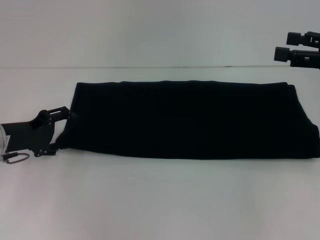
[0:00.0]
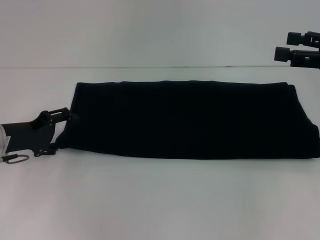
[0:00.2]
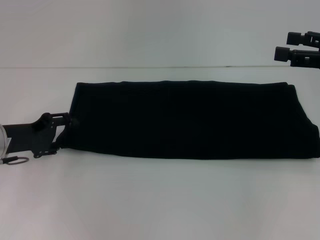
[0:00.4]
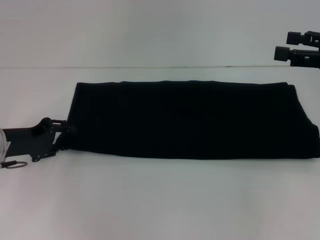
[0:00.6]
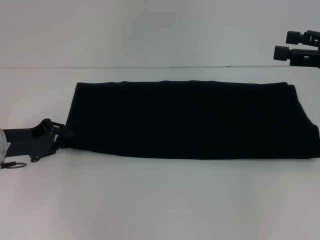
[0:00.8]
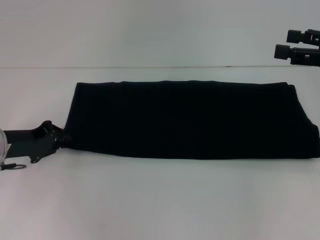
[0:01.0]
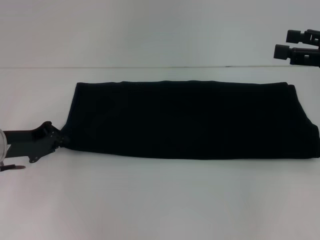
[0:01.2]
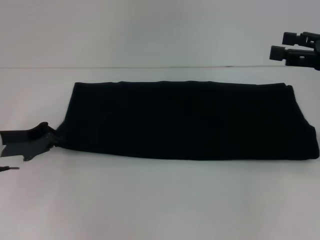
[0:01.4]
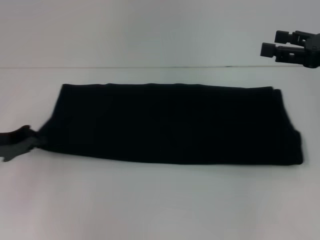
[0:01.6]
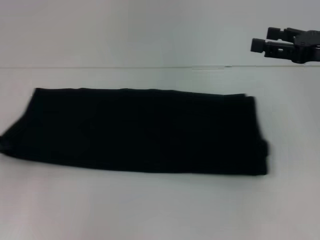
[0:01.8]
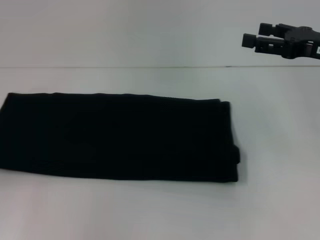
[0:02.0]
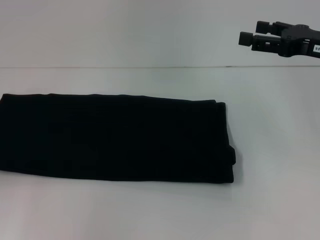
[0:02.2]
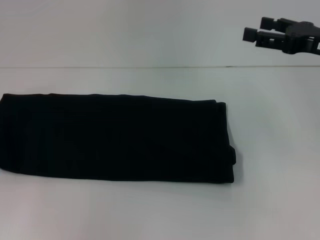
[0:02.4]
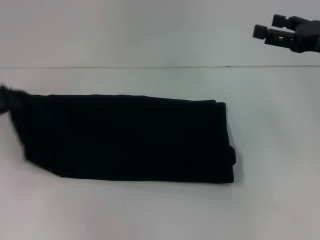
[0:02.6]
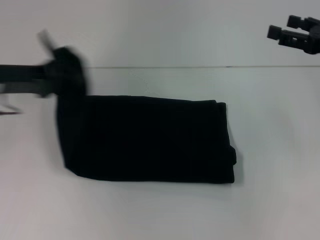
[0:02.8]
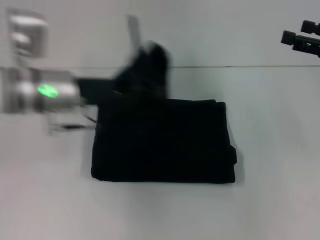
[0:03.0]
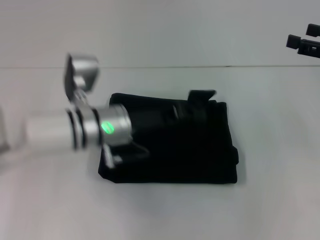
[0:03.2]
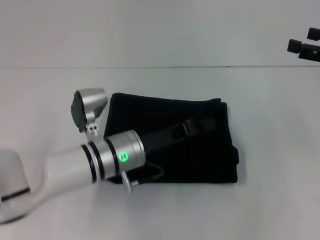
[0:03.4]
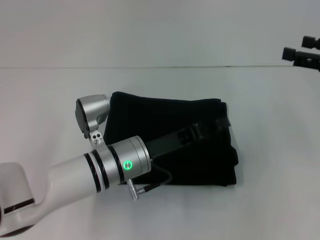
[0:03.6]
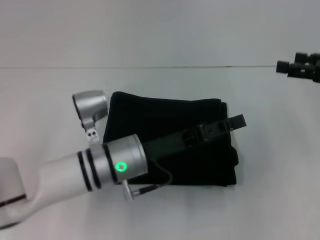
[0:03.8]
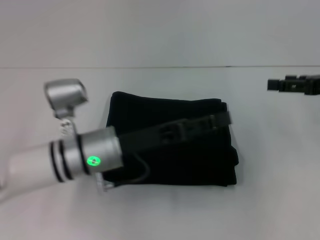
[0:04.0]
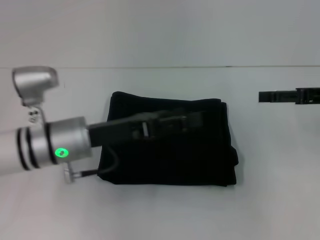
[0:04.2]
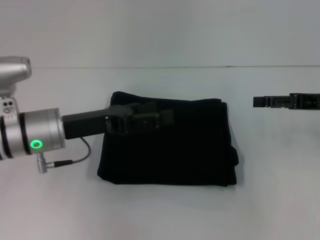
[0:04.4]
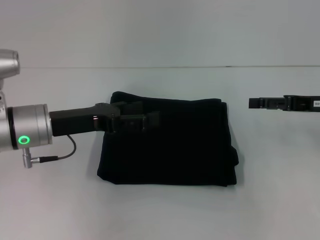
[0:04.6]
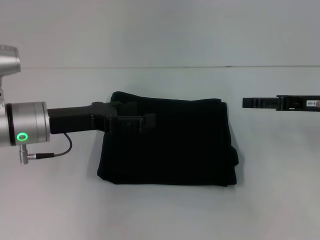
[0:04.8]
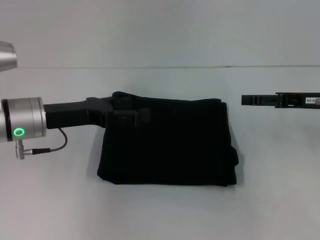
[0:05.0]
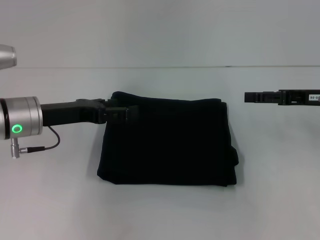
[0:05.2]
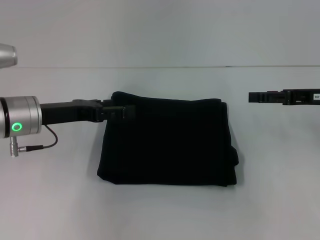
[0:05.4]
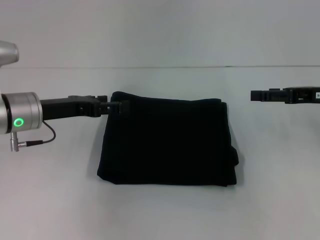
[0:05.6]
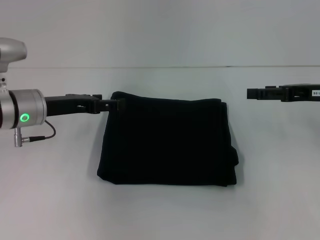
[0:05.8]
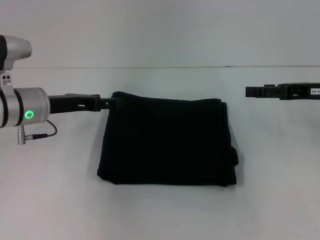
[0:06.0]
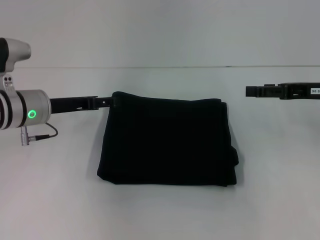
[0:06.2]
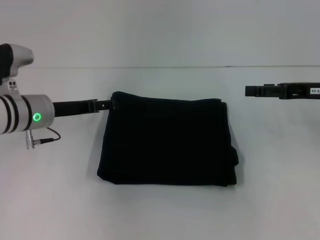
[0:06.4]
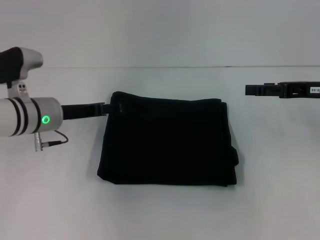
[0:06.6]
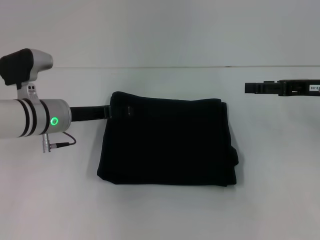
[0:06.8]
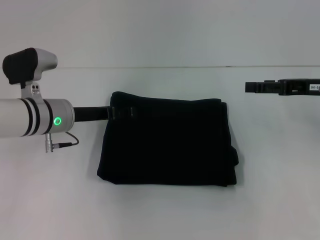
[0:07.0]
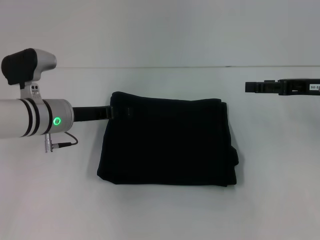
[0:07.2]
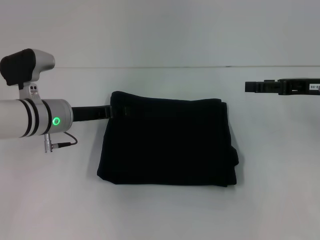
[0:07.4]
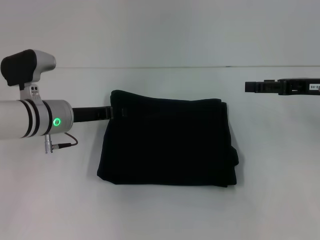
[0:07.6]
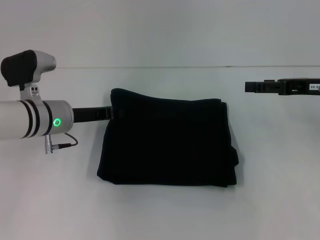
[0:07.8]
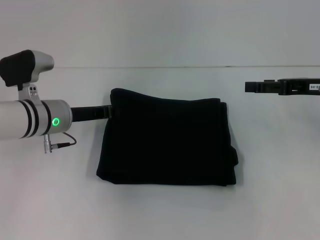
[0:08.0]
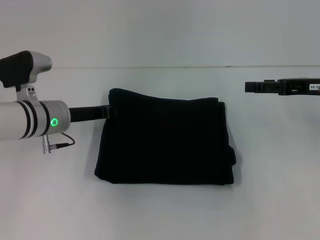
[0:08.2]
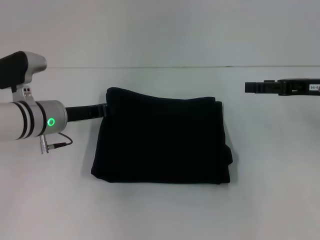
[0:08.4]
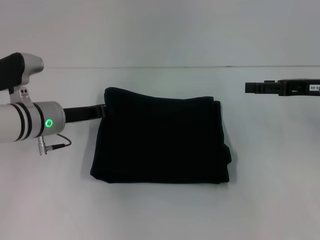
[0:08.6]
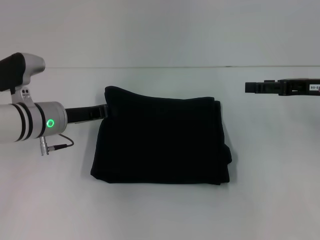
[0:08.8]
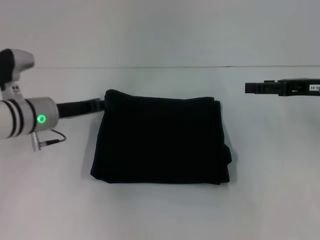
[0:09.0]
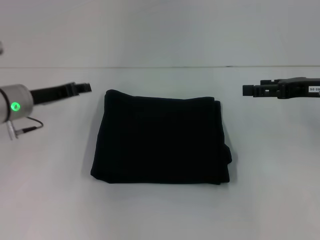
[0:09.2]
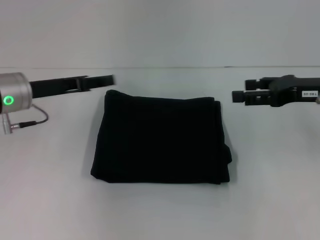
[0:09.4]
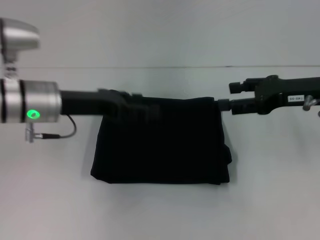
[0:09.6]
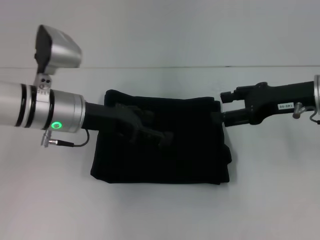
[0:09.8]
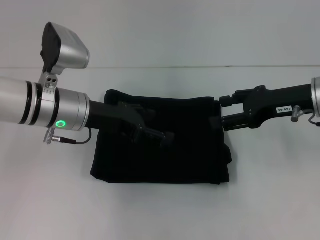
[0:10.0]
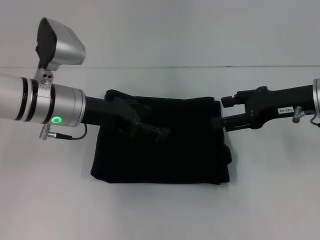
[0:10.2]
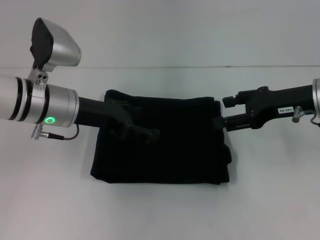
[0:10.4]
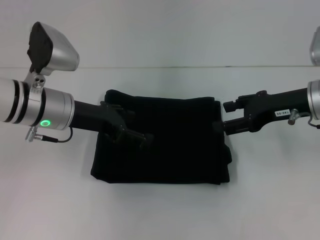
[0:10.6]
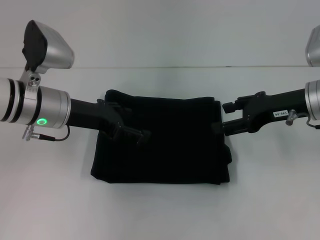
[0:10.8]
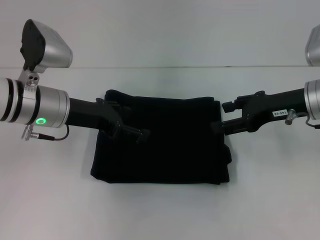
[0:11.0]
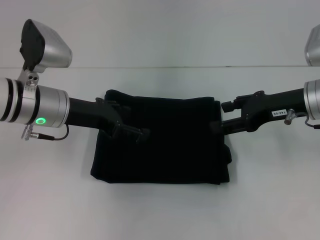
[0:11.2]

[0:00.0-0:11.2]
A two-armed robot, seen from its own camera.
Step, 0:00.0 to 0:04.0: Fold the clothes with your left hand.
0:00.0 to 0:01.6: The left gripper closes its fingers.
0:01.6 to 0:03.2: The left gripper travels to the right by approximately 20 cm.
0:03.2 to 0:04.8: The left gripper goes some 10 cm to the left, and opens its fingers. Meanwhile the right gripper ends up some 5 cm from where it was.
0:04.8 to 0:06.4: The left gripper goes roughly 5 cm forward.
0:06.4 to 0:08.0: The left gripper closes up.
0:08.0 to 0:09.6: The left gripper travels upward by about 5 cm, and opens up.
0:09.6 to 0:11.2: The left gripper opens up.
